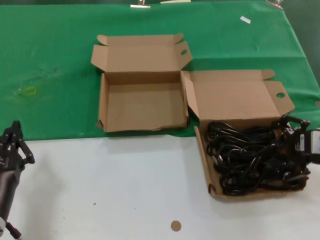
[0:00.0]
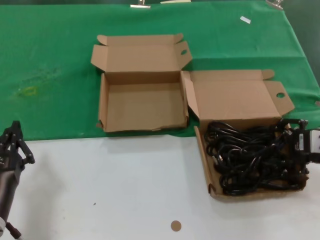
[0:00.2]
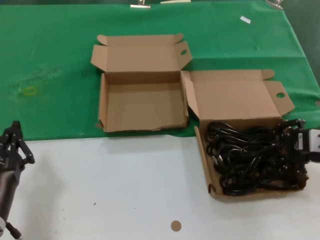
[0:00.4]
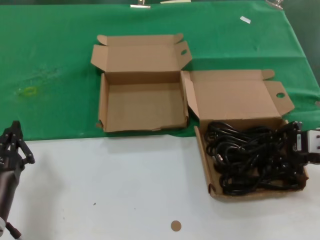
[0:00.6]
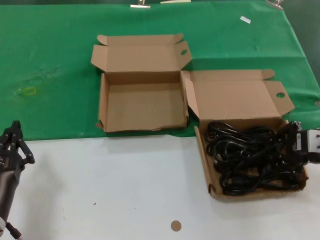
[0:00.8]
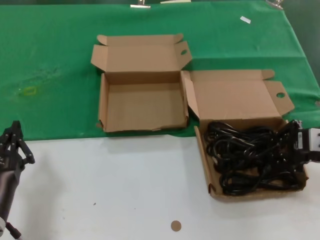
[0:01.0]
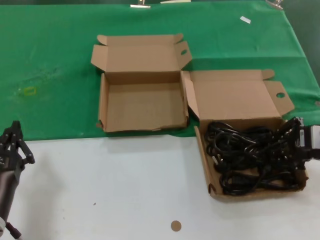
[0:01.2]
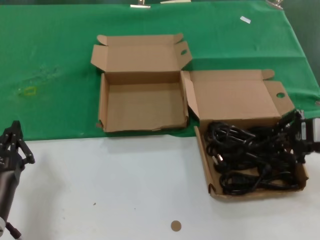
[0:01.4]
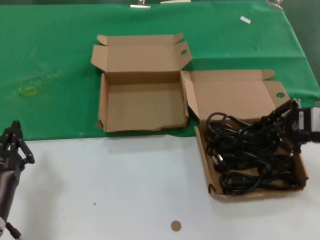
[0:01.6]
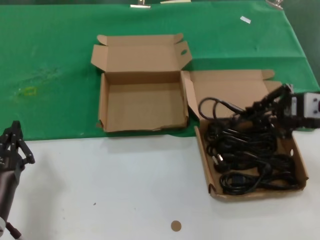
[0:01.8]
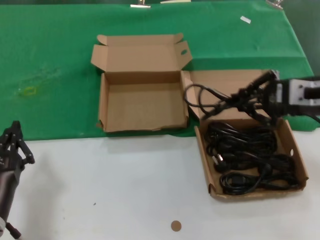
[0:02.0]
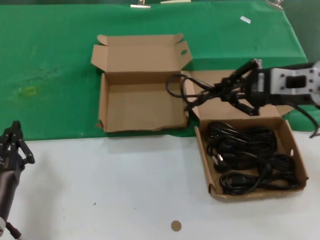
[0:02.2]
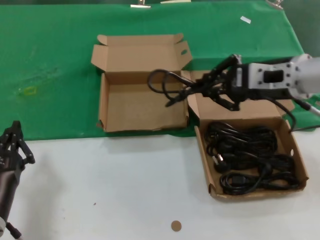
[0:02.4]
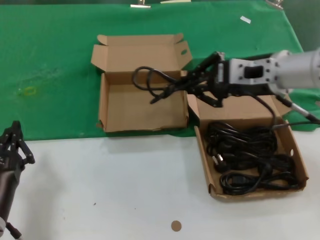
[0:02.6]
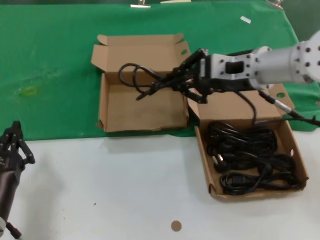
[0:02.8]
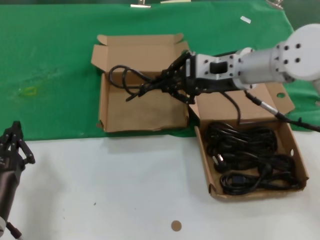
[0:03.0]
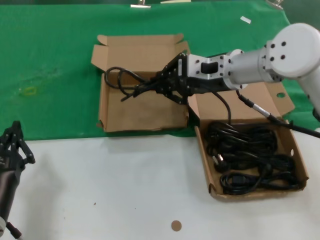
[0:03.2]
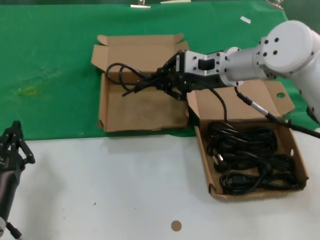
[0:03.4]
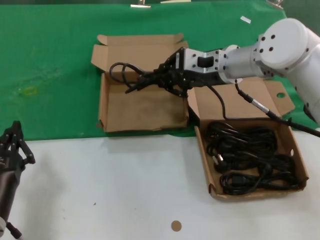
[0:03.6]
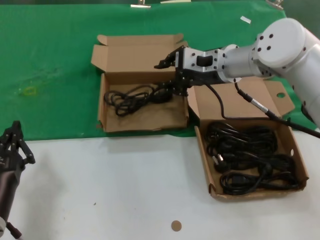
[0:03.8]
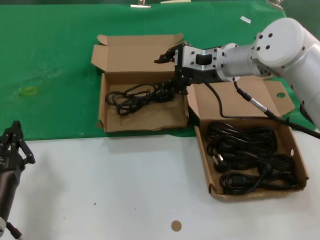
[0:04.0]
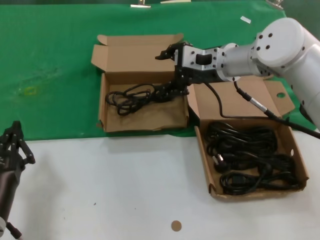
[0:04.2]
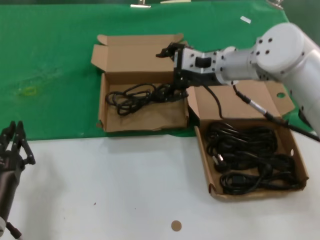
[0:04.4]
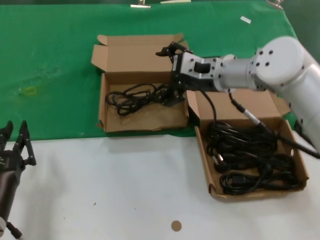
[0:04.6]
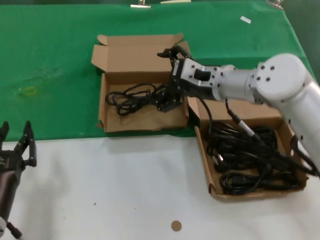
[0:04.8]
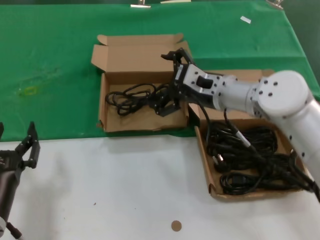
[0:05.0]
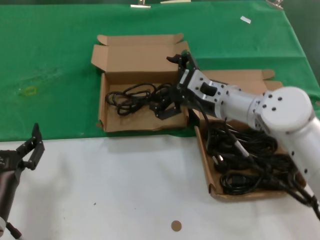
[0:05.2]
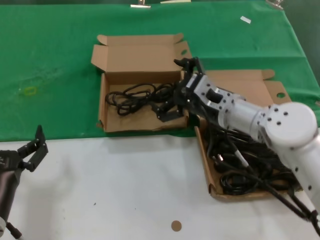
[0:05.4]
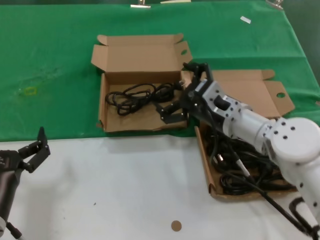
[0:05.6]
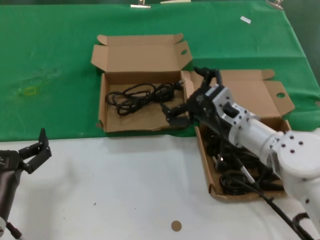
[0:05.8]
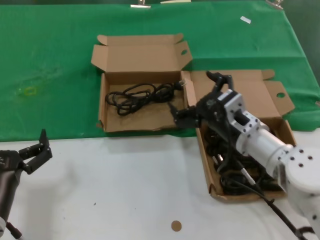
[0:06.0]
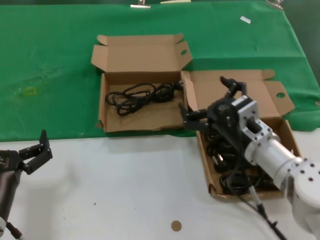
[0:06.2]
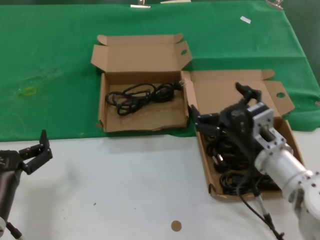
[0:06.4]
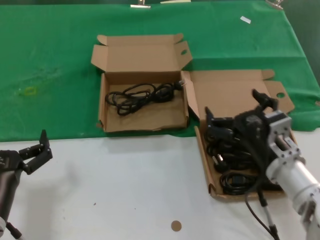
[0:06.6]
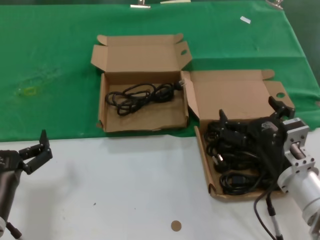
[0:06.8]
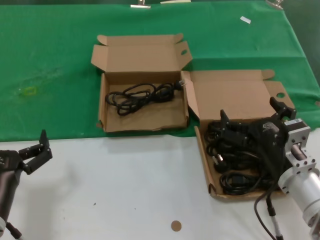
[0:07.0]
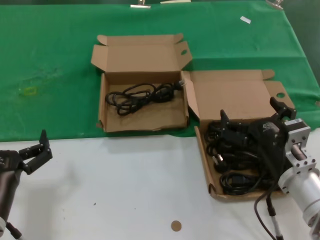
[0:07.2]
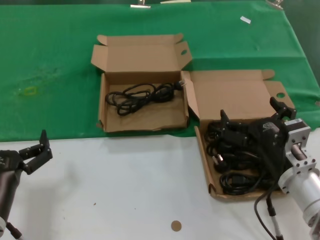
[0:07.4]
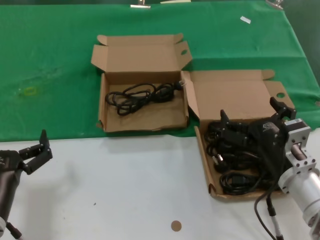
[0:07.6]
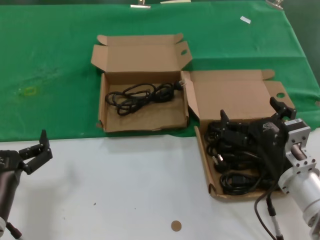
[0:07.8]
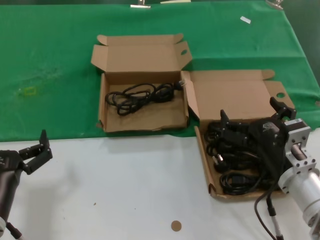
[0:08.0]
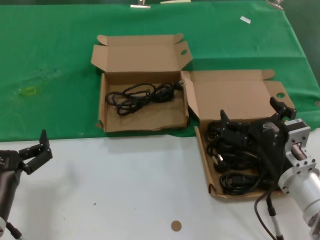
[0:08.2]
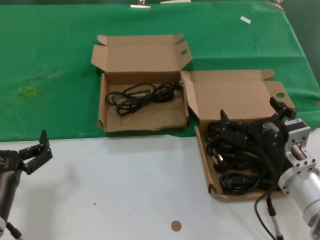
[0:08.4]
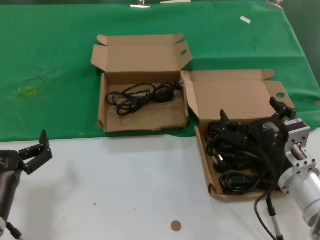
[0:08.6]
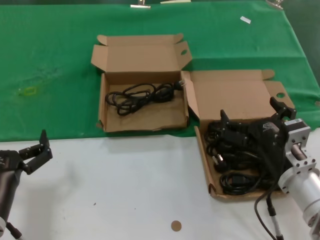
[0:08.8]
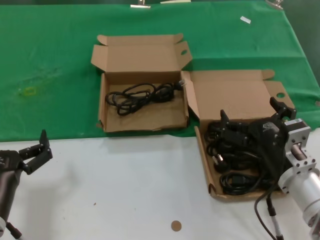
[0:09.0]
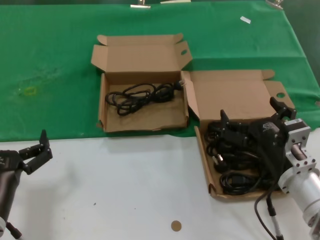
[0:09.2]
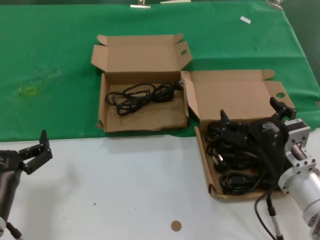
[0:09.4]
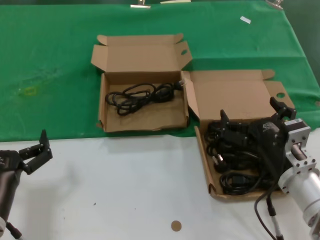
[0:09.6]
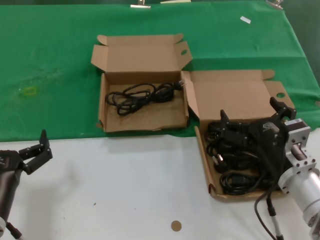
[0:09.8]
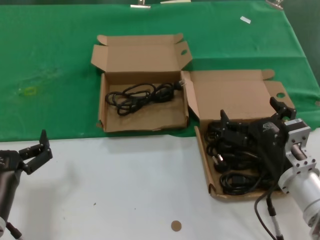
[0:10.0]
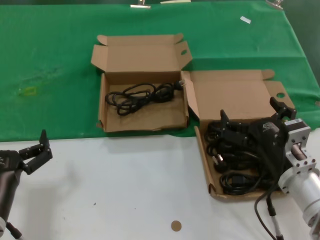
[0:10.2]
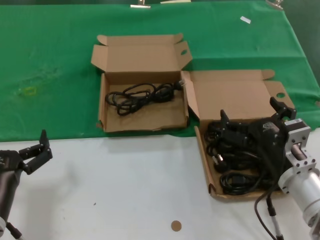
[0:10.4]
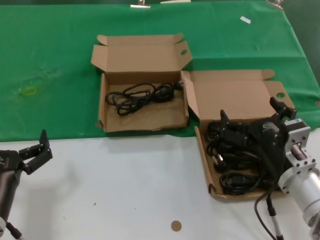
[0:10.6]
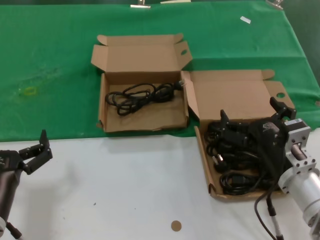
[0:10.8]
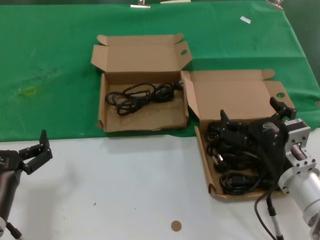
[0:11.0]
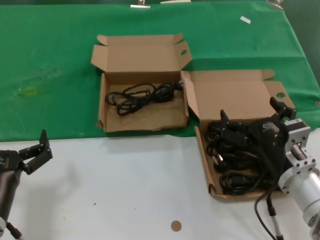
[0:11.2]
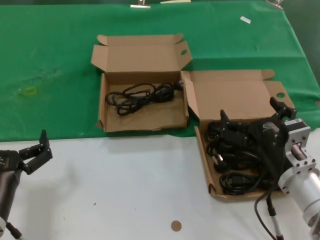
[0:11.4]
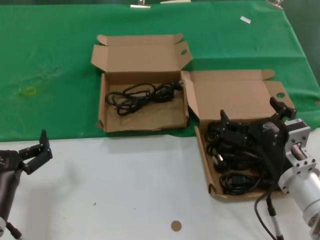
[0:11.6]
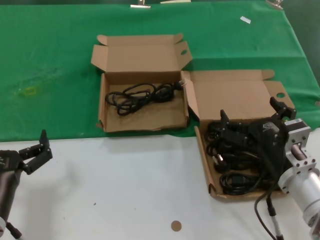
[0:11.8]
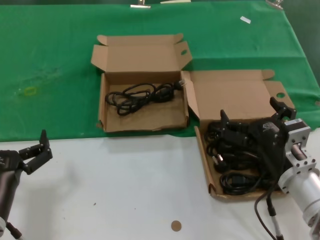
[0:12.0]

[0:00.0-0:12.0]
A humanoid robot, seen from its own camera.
Task of the whole recording: take the parts from the box containing them and put them into an empty box.
Step, 1.0 to 3.8 s: Place the data cable in the another box.
0.0 to 1.6 s: The right hand is displaced upward by some 5 cm.
1.6 to 3.0 s: The right hand moves to the left and forward, about 20 cm.
3.0 to 4.4 s: The right hand shifts roughly 5 cm forward.
4.4 to 6.0 s: The right hand travels downward and backward by roughly 20 cm.
6.0 to 7.6 s: The right hand is displaced backward by some 10 cm.
7.6 to 12.0 s: Both hands stay about where they are.

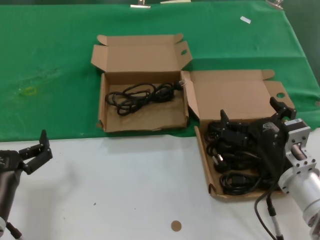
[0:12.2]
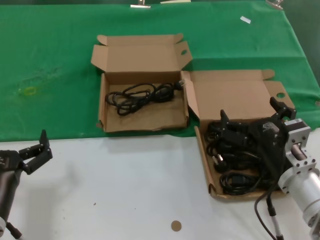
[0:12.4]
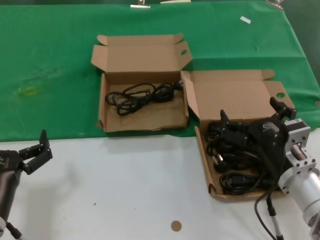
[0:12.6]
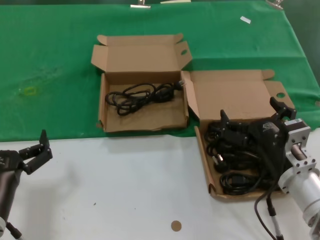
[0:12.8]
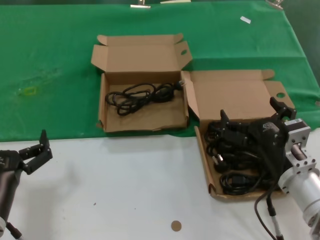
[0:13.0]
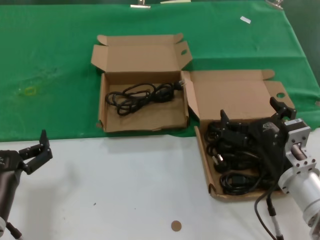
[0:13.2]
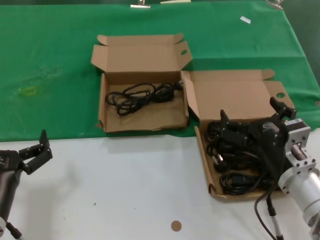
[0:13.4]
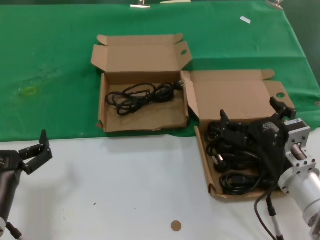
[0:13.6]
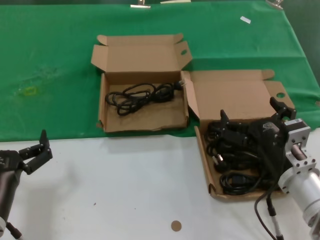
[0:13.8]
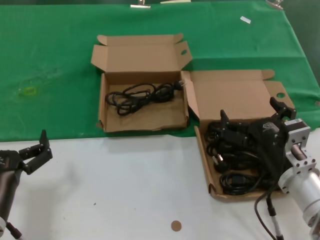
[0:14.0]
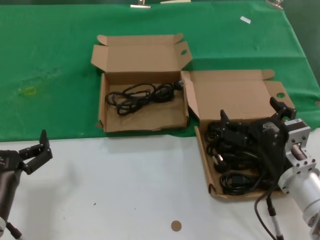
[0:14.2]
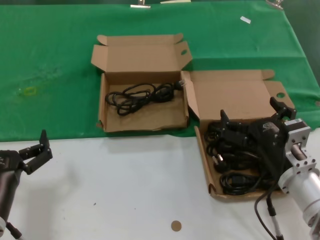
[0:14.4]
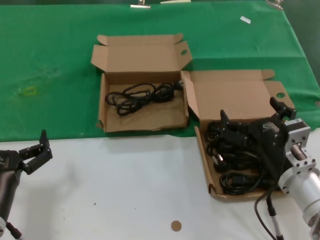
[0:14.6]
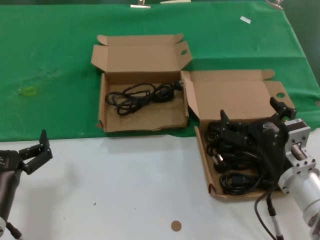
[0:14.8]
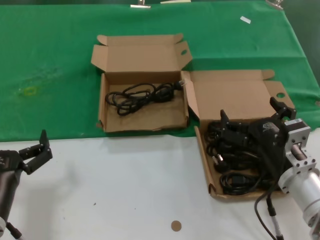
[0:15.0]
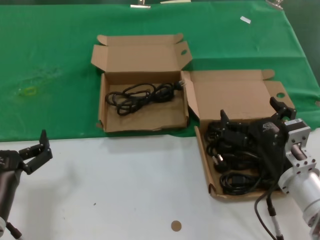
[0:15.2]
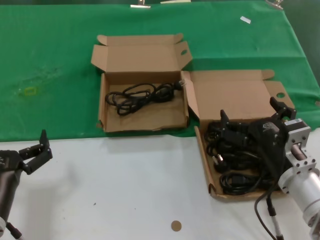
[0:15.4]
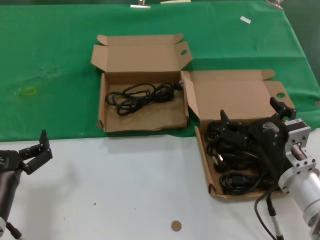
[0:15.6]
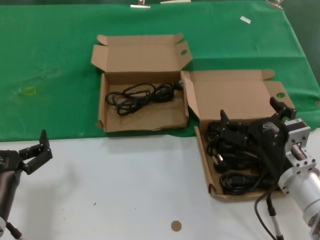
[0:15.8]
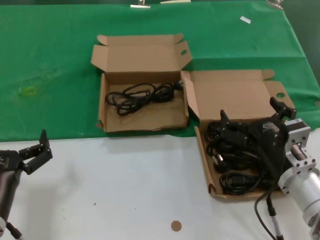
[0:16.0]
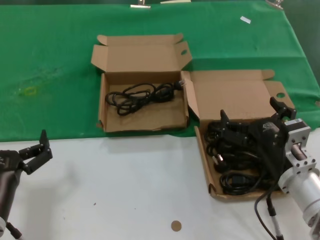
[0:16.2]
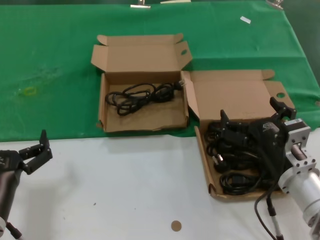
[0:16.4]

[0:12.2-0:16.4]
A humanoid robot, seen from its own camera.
Task of the whole recording: take the parts from the box containing them and put them into an empty box.
12.2 to 16.4 s: The two hands keep their place.

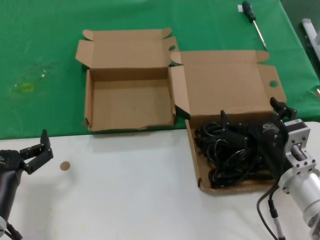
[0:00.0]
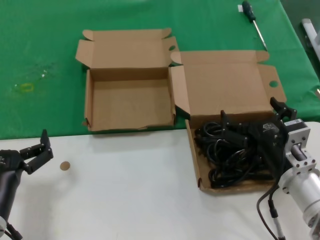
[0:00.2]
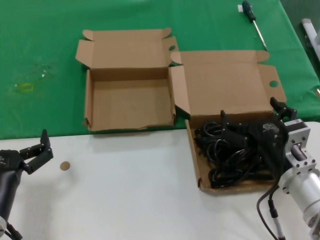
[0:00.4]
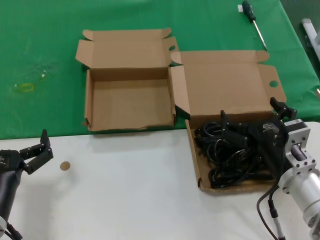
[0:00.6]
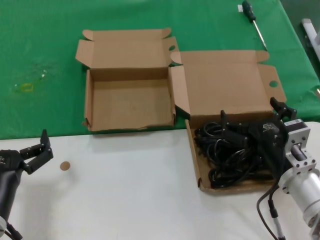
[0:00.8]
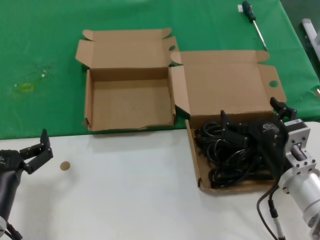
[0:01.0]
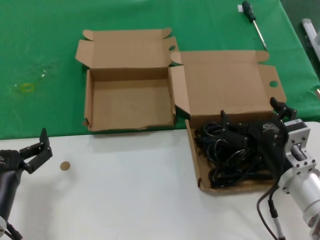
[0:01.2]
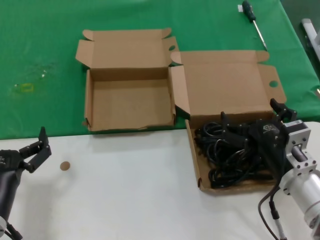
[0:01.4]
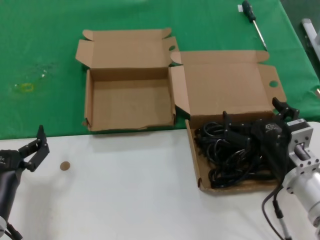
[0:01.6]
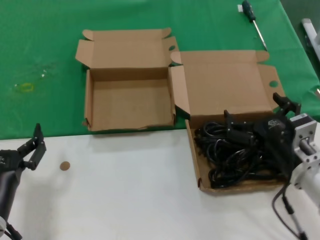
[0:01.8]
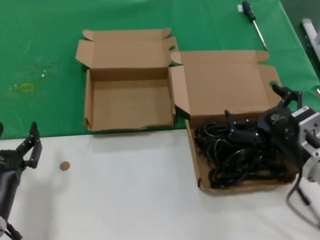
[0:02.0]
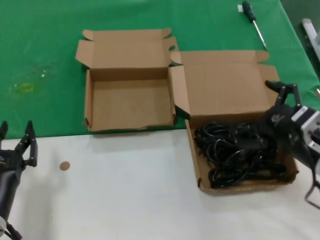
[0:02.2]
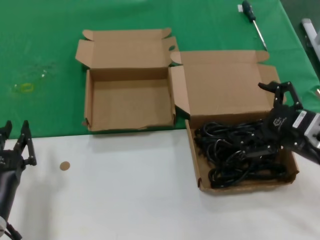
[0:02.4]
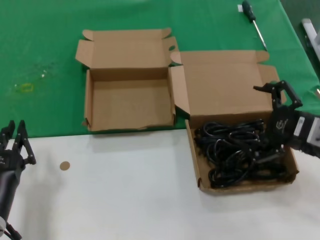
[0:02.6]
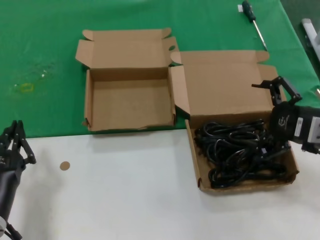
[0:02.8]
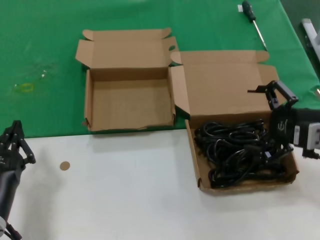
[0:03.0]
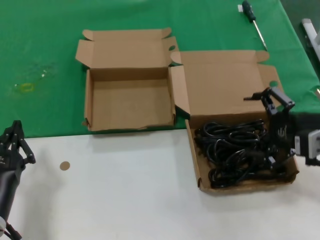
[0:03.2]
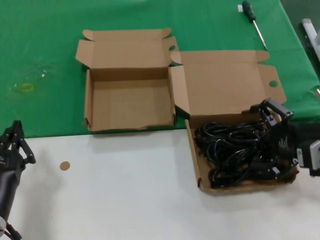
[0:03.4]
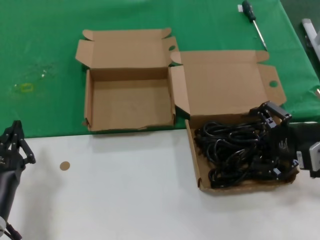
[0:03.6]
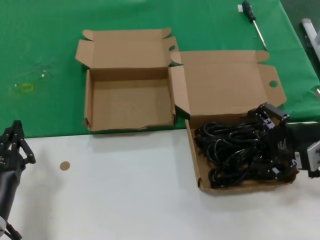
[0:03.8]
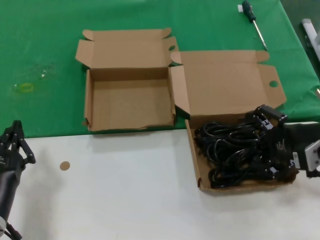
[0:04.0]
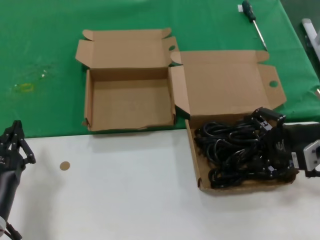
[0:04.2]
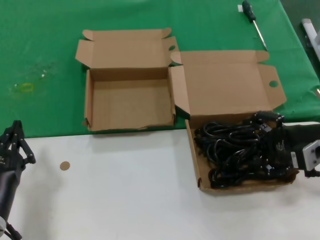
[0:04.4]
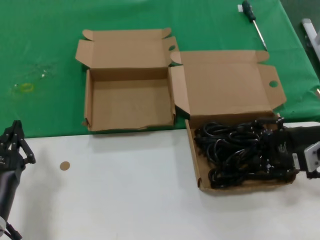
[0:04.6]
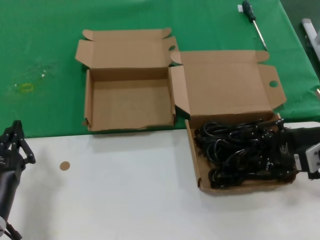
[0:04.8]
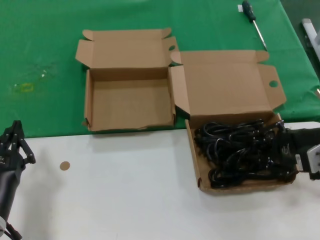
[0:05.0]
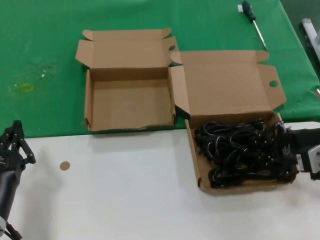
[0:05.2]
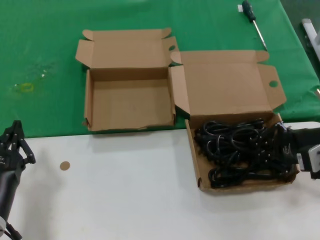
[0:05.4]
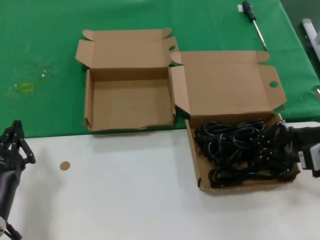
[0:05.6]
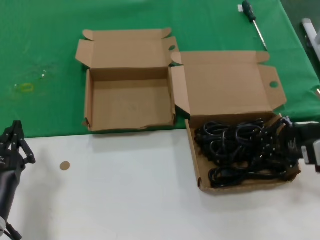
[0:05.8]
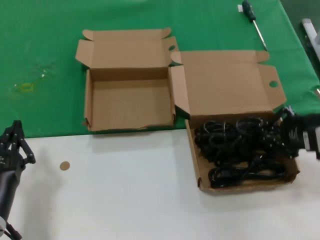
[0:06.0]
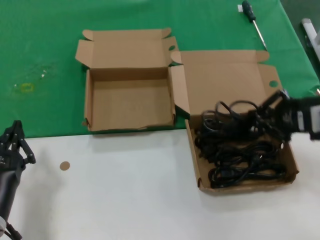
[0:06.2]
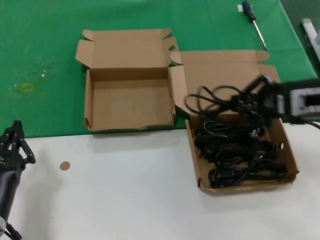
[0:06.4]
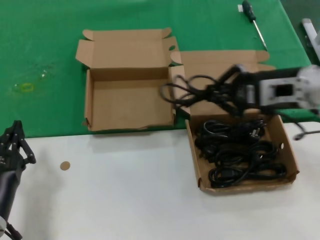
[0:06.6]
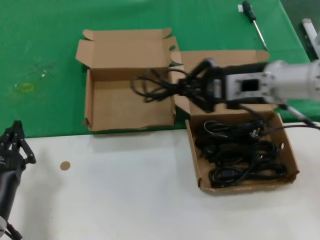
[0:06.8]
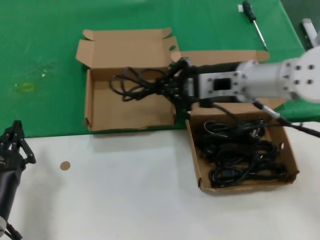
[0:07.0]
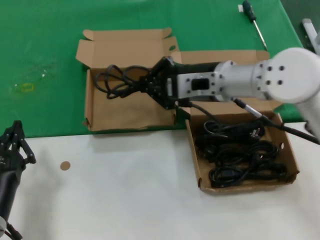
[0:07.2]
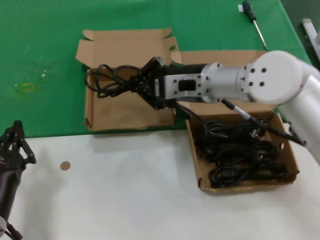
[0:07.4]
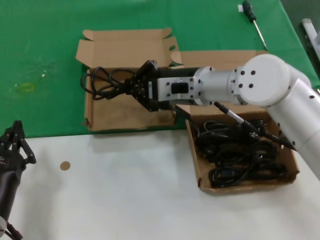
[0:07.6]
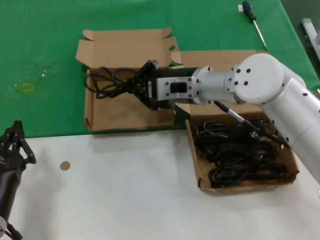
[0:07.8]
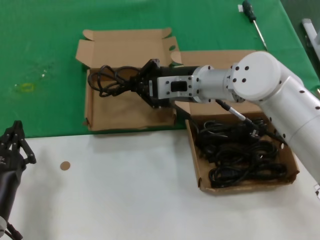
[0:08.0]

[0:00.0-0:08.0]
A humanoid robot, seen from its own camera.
Task of the whole recording: take the parts from the box containing them and put them into an empty box.
Step, 0.0 to 5.4 s: Grasp the data cable.
0.0 to 1.6 s: Neither hand changes place.
1.6 to 3.2 s: The right hand is displaced upward and to the right by some 15 cm.
3.2 to 4.8 s: The hands stay close to where they were, moving slightly.
4.8 to 6.4 s: The right hand goes approximately 10 cm upward.
6.4 to 8.0 s: The right hand moves to the left and forward, roughly 25 cm.
